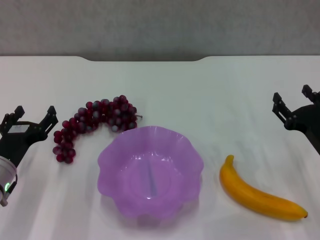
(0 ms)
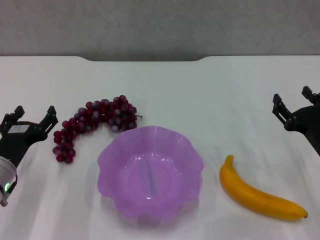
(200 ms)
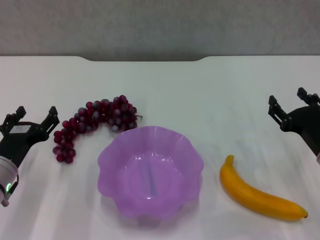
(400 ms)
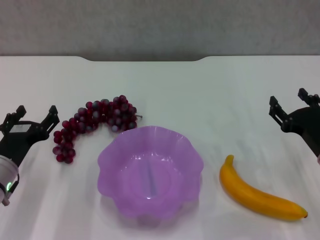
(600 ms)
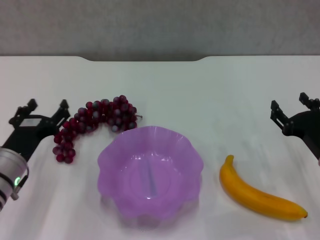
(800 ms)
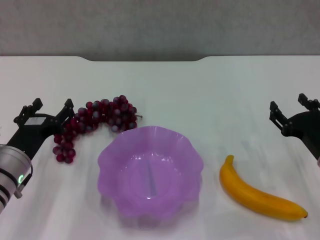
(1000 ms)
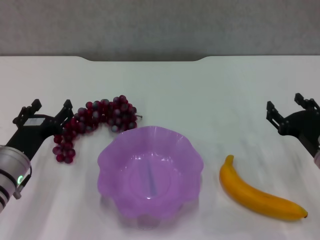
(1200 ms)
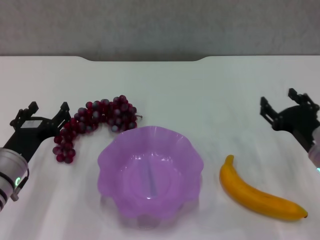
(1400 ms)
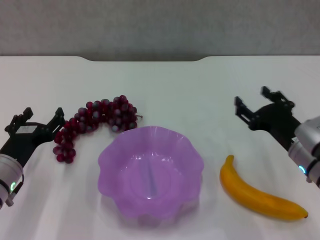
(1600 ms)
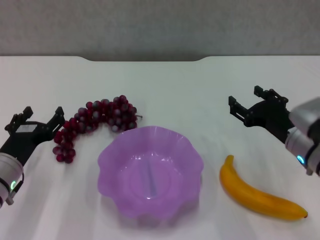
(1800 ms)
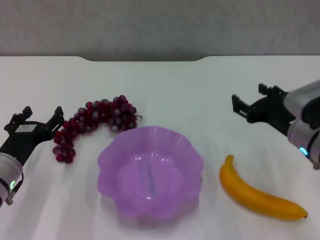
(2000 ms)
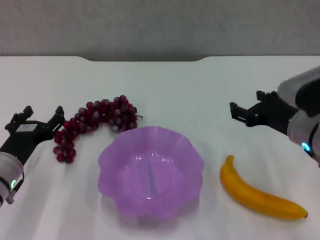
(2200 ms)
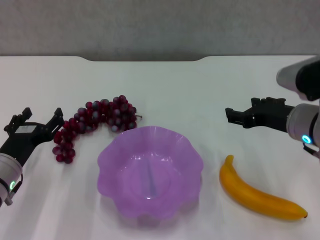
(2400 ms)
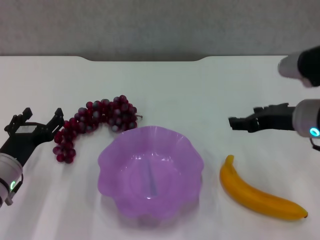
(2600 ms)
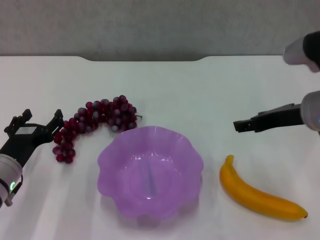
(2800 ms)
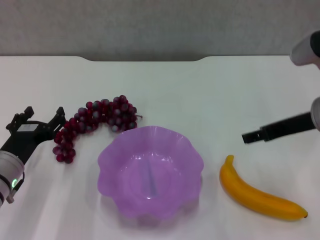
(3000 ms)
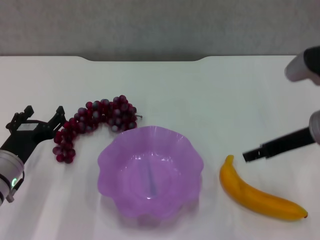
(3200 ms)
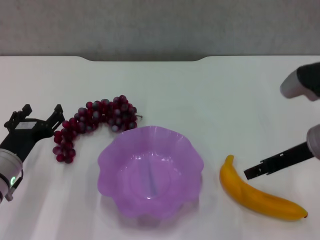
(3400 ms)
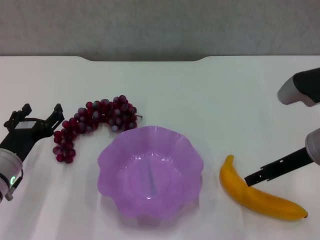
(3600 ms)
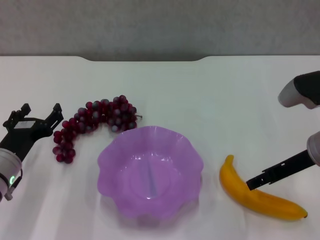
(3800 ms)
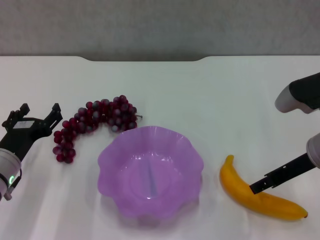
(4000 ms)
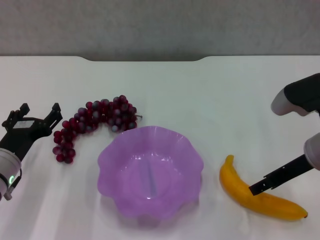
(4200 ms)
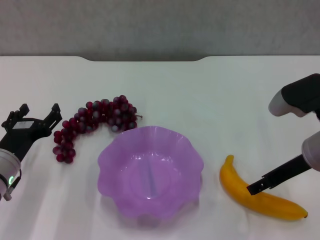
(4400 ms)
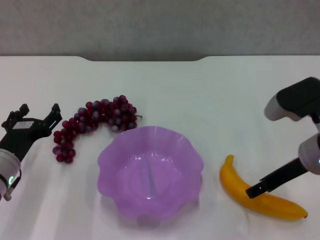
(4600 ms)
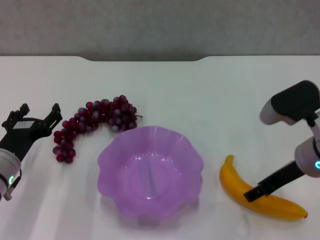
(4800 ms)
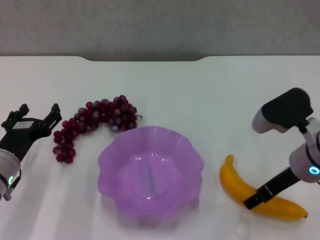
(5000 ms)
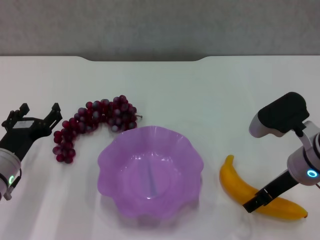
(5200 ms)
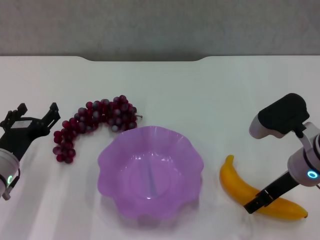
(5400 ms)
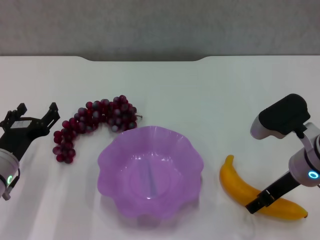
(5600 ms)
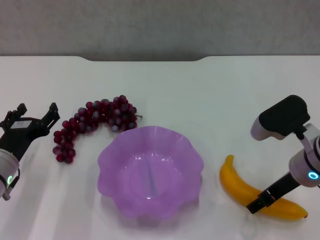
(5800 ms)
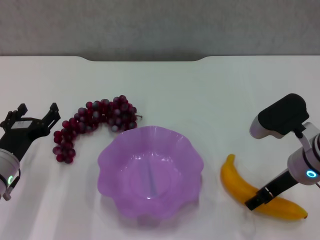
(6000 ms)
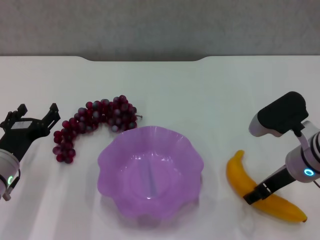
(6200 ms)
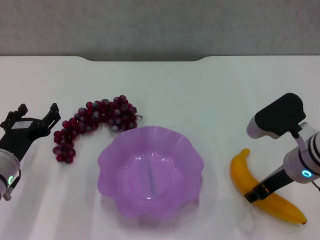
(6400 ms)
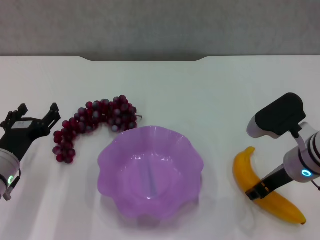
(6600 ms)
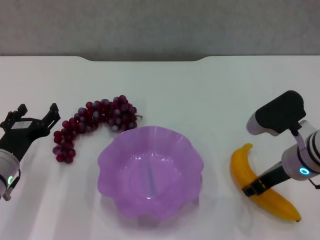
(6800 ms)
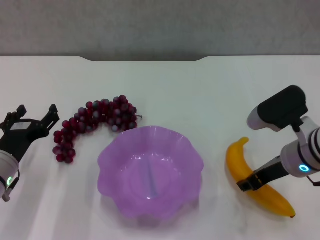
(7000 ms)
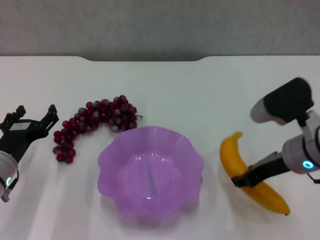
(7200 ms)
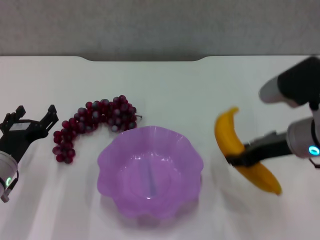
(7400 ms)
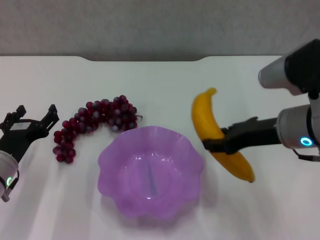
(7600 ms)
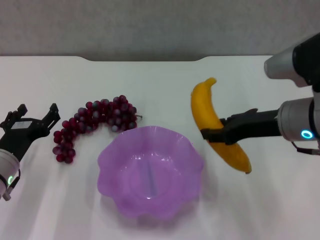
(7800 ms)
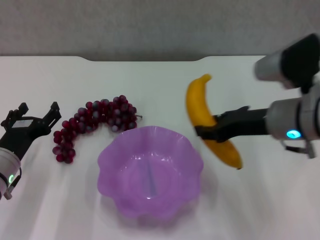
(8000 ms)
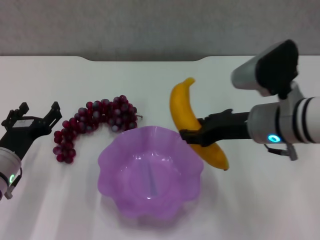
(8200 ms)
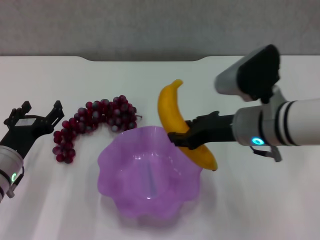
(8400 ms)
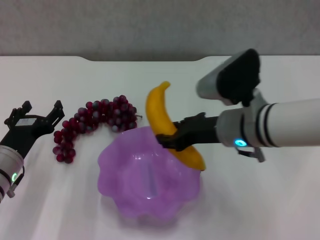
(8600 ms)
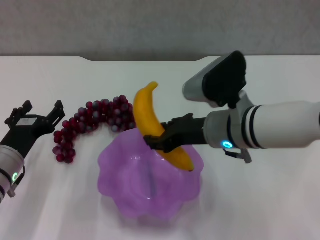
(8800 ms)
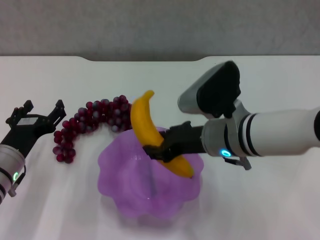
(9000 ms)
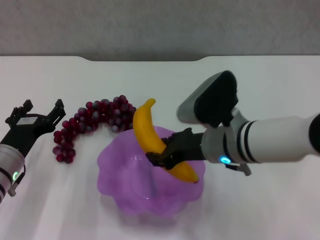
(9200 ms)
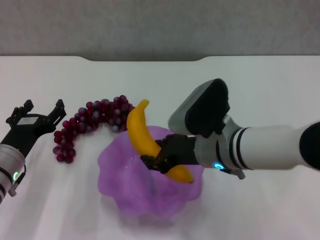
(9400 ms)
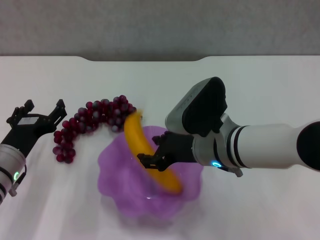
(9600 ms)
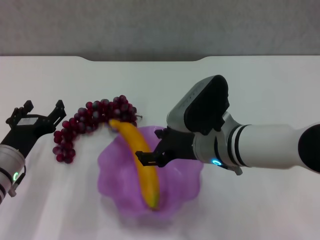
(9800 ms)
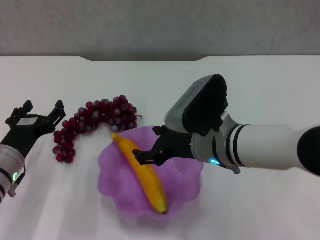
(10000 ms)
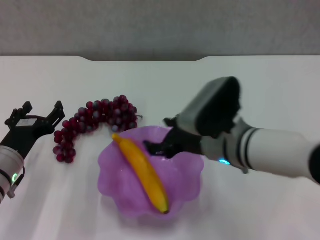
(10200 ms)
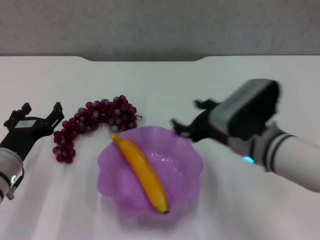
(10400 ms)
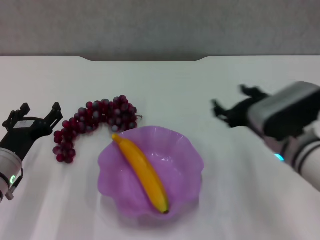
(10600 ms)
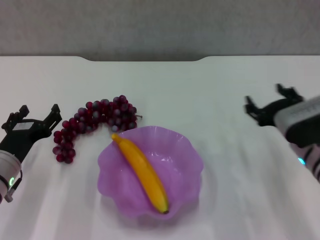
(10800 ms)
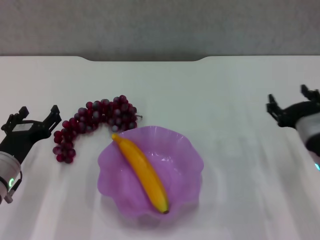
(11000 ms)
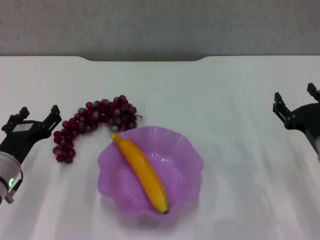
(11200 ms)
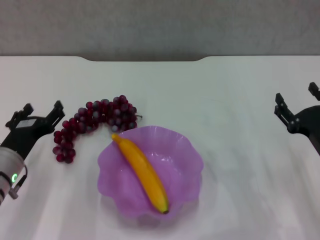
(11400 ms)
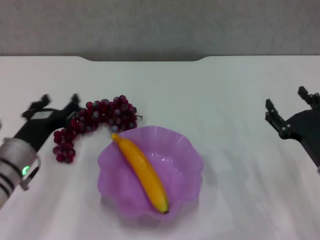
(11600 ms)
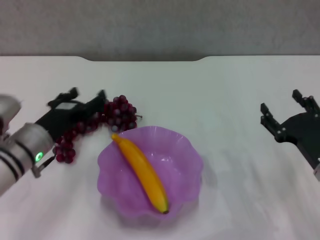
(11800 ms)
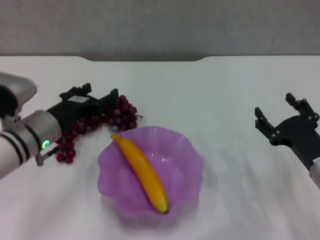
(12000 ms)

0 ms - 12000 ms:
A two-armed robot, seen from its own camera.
Step, 0 ms - 6400 ms: Grasp the banana with right gripper.
Step, 6600 ms - 9800 ms: Place the banana in the purple plate with right gripper.
0 ms - 1600 ms: There are only small adjustments of the grippers.
1600 ms - 3000 ms: The right gripper goes roughly 15 cm upward.
3000 ms - 4400 ms: The right gripper is displaced downward by approximately 5 cm.
4400 ms - 6000 ms: There are only small adjustments of the grippers.
6000 ms - 7600 ms: The right gripper moves upward, about 10 cm, and closes up.
7600 ms - 9000 ms: The right gripper is displaced to the left by some 10 cm.
9000 ms - 10400 ms: The right gripper opens.
10400 ms - 12000 ms: The left gripper is displaced upward by about 5 cm. The right gripper travels to the right and downward by some 15 cm.

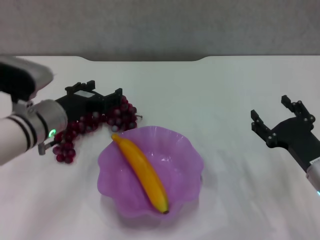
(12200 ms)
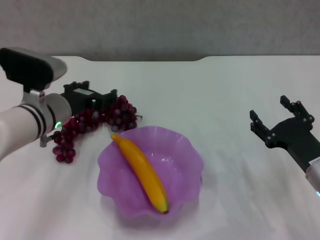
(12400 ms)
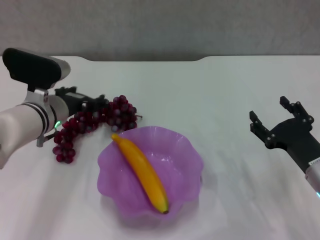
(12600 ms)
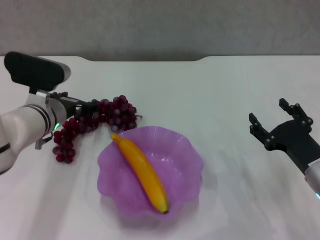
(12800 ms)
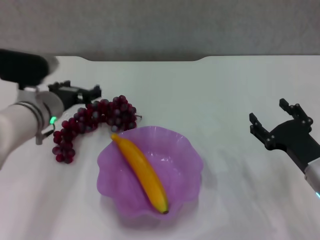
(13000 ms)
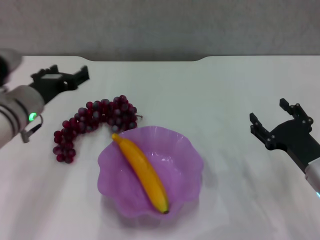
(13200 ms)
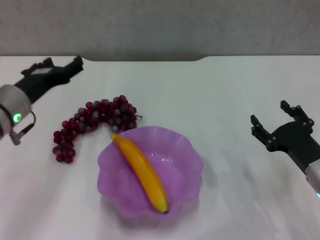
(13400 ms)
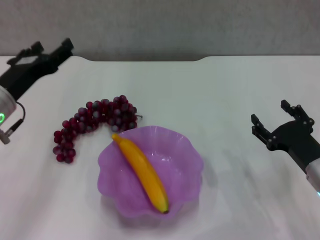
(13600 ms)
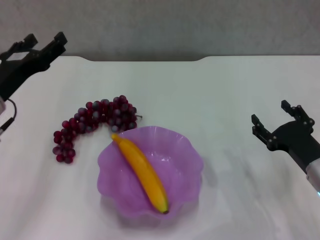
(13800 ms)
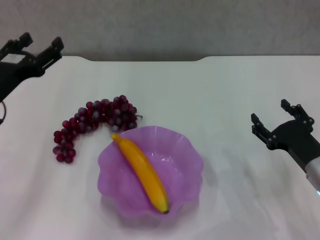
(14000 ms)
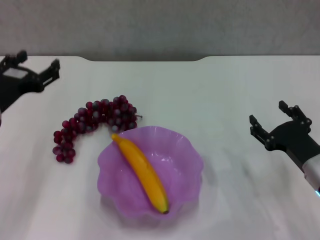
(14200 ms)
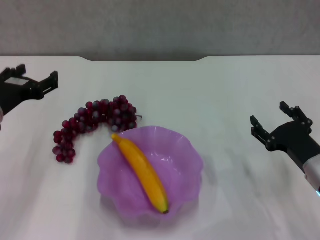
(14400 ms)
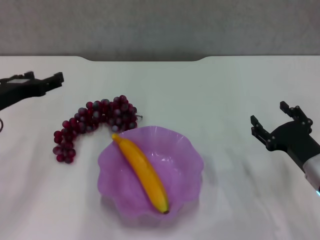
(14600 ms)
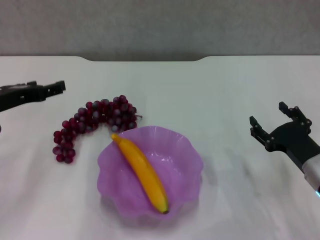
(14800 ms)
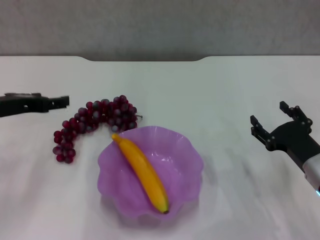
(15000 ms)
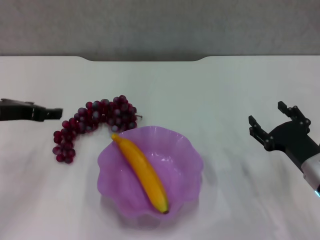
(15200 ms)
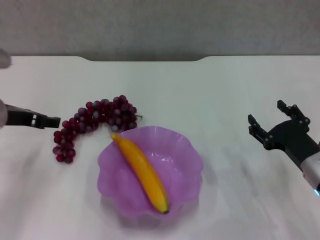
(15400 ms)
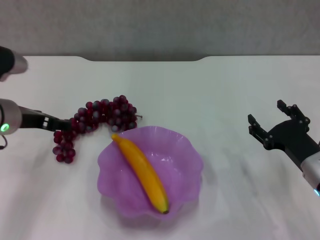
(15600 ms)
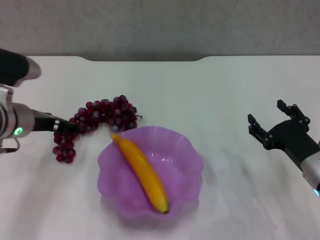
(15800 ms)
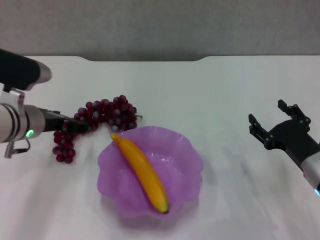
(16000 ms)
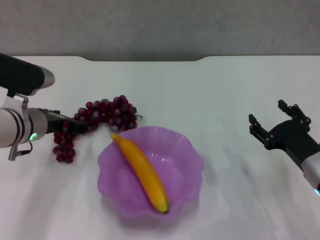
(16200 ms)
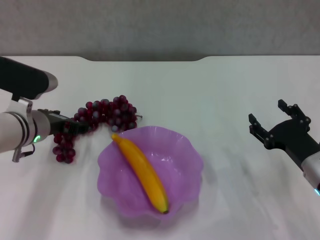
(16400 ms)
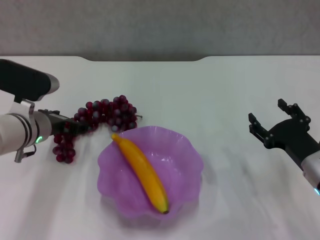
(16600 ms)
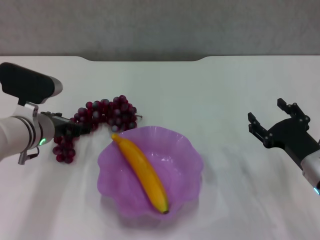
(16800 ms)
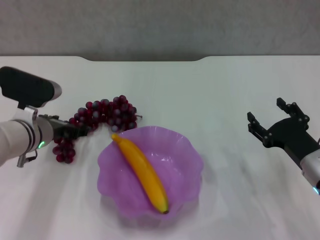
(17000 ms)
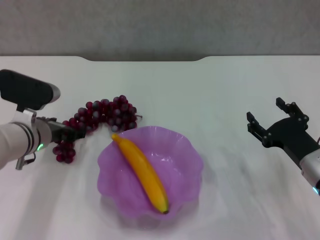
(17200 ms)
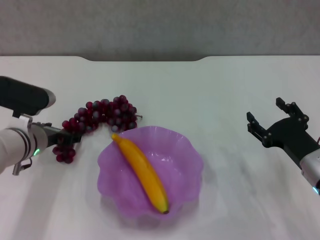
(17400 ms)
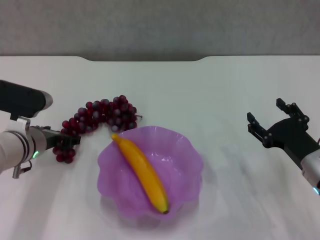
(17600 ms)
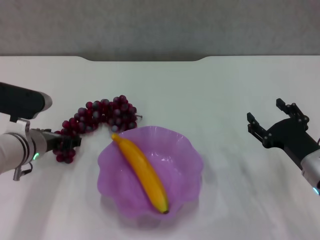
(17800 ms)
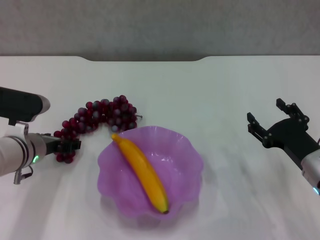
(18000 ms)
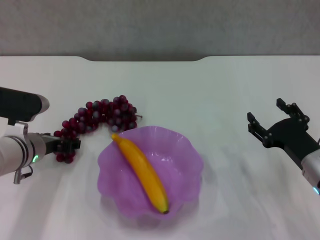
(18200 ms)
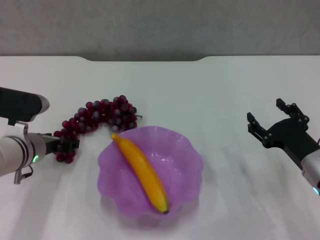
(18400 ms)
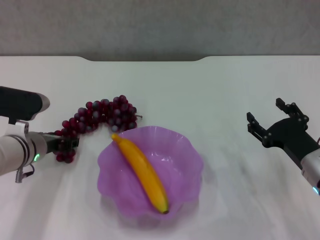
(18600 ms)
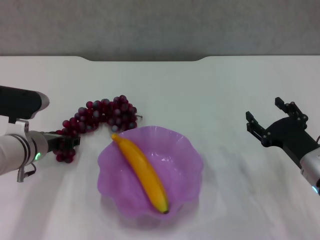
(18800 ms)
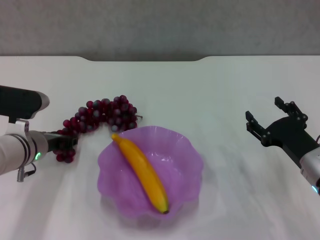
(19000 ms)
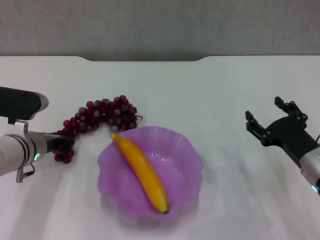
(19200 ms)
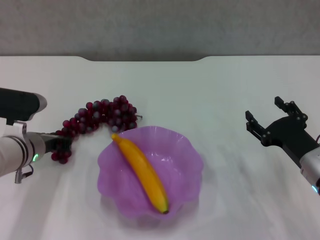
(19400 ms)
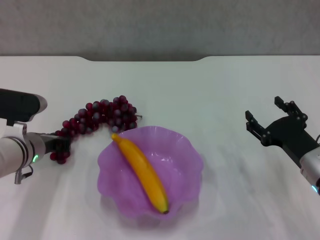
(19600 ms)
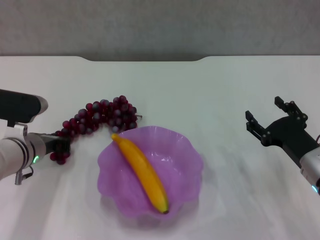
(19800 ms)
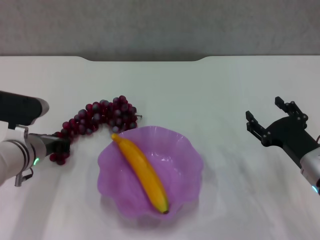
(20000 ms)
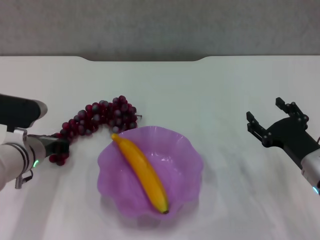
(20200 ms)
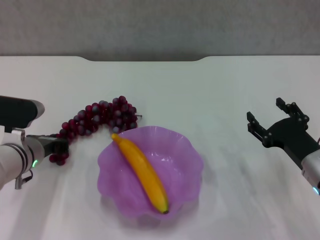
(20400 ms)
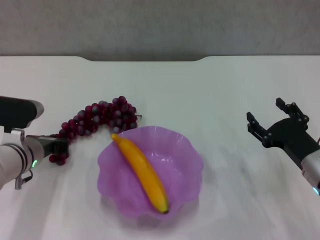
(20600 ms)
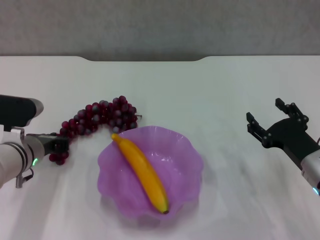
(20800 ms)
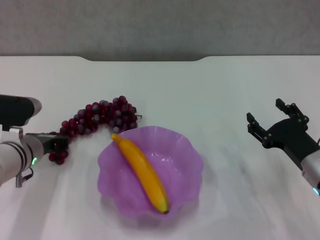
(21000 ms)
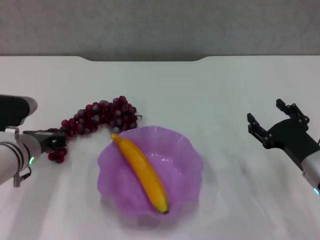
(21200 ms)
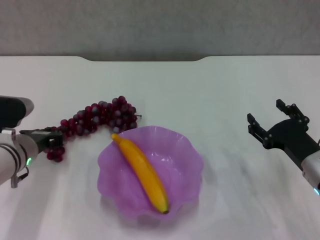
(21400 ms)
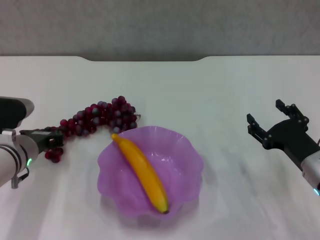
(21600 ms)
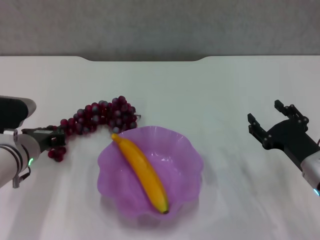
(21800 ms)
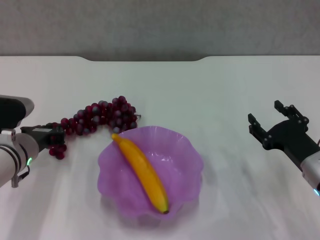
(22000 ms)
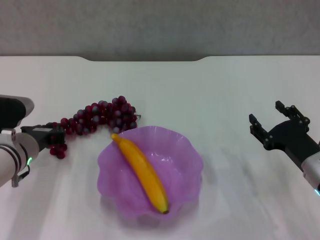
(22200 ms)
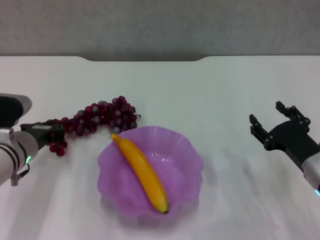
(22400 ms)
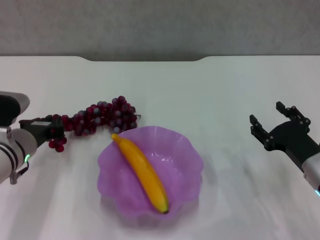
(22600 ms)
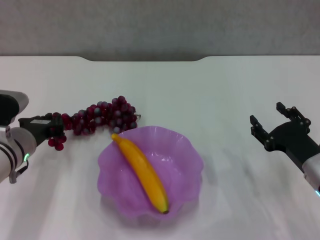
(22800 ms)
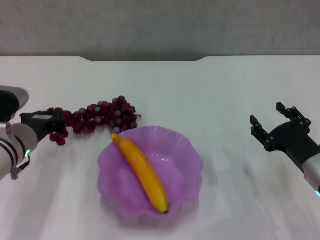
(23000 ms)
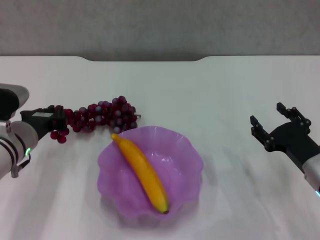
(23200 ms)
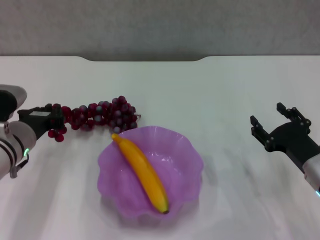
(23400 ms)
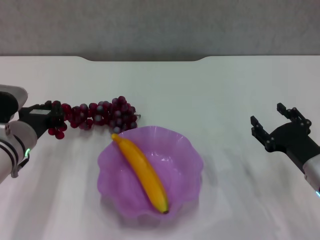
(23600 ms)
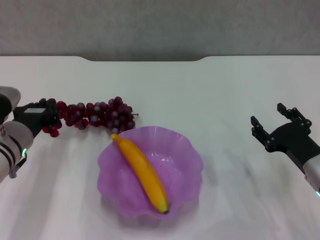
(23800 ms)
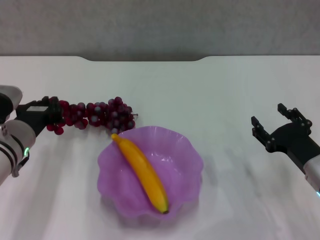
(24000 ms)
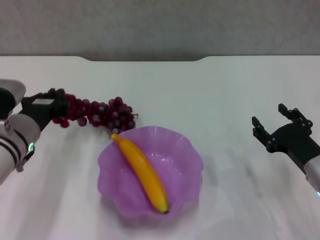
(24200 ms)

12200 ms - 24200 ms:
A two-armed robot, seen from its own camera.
Step, 12200 ms - 20000 ms: Grasp the grape with left gripper.
12200 ms - 13800 ms: The left gripper travels to the left by some 5 cm.
15200 ms - 16600 ms: The left gripper shifts some 10 cm downward and to the right.
16600 ms - 18200 ms: The grippers move only a little.
18200 ms - 19800 ms: The left gripper closes up.
19800 ms - 22600 ms: The grippers move only a little.
22600 ms - 24200 ms: There are only small adjustments of the grippers.
